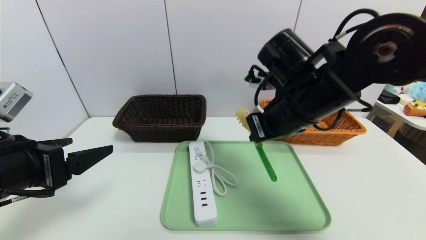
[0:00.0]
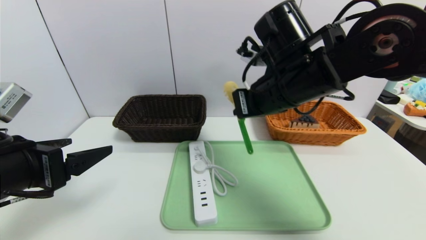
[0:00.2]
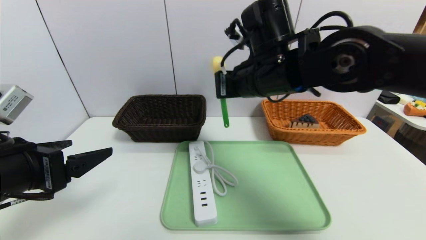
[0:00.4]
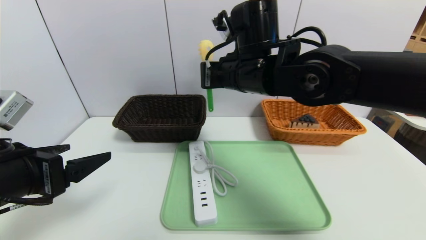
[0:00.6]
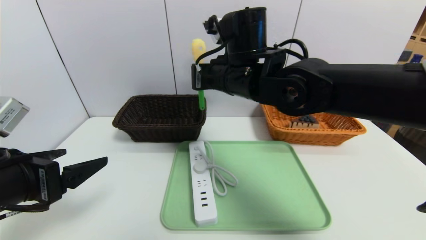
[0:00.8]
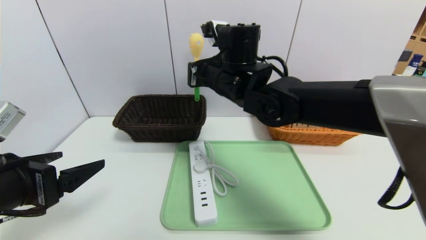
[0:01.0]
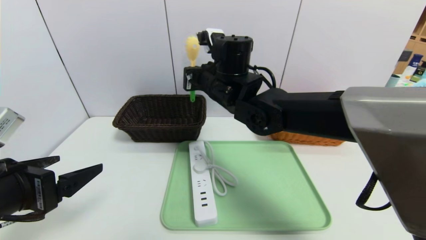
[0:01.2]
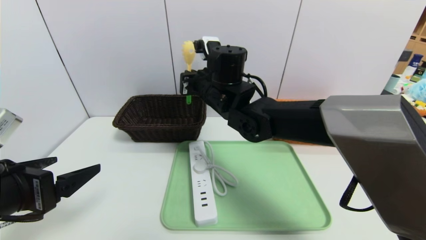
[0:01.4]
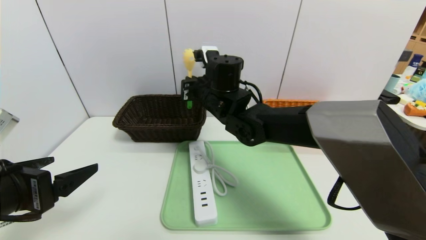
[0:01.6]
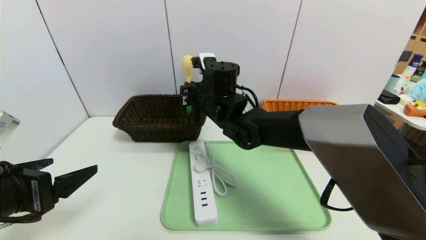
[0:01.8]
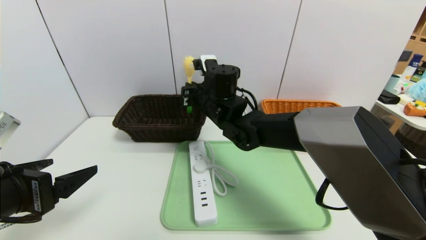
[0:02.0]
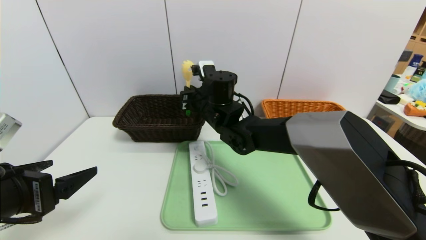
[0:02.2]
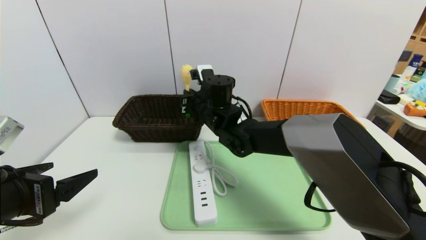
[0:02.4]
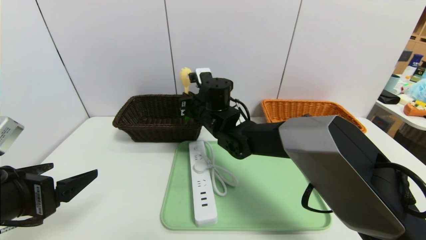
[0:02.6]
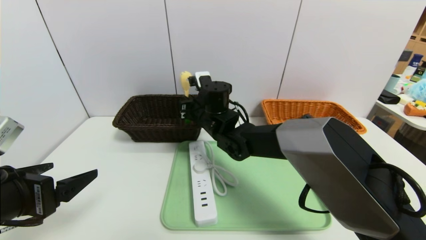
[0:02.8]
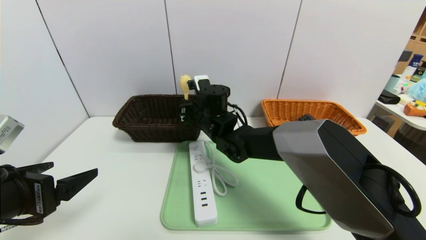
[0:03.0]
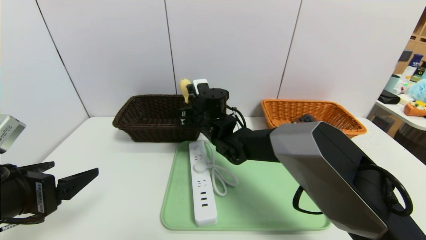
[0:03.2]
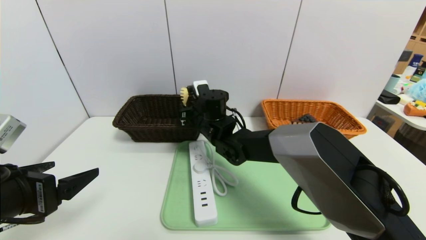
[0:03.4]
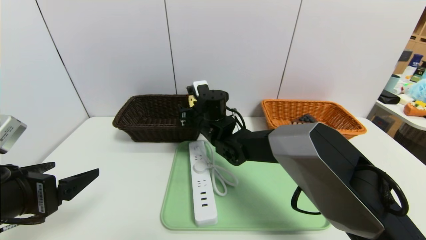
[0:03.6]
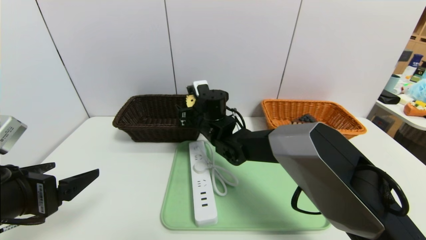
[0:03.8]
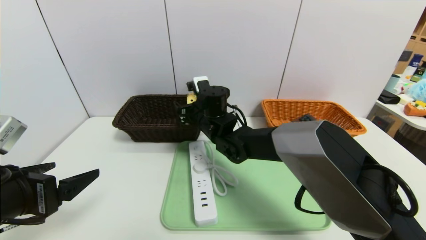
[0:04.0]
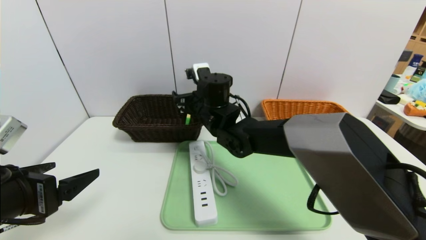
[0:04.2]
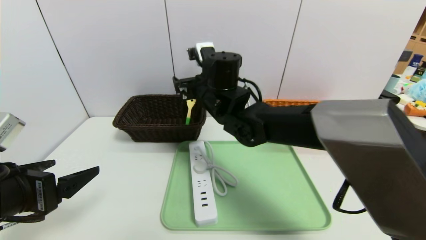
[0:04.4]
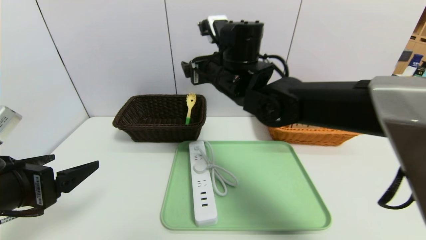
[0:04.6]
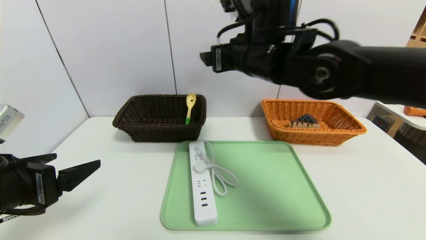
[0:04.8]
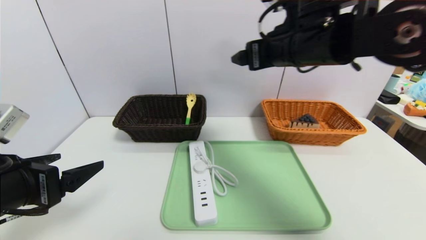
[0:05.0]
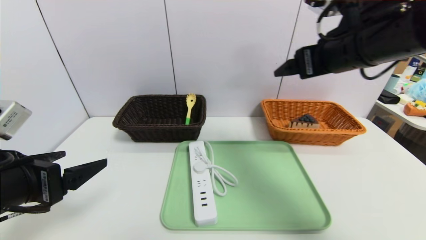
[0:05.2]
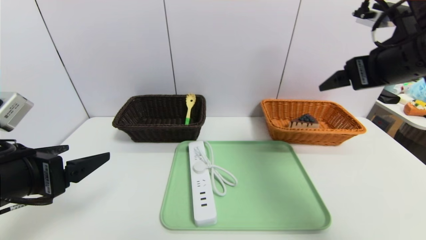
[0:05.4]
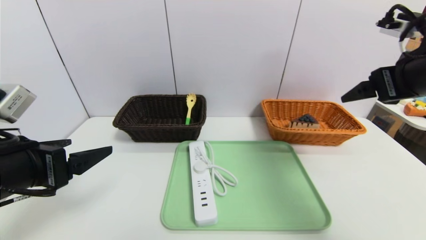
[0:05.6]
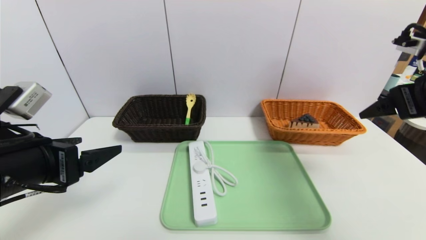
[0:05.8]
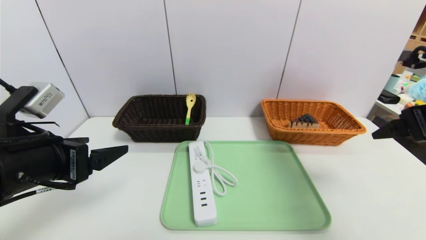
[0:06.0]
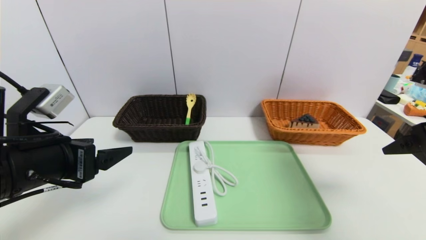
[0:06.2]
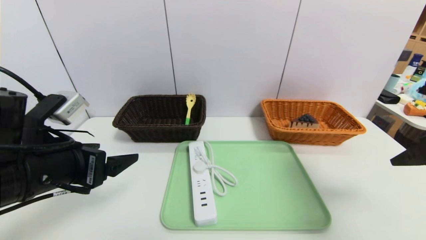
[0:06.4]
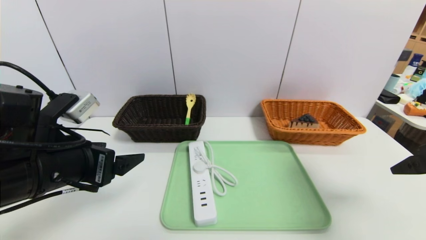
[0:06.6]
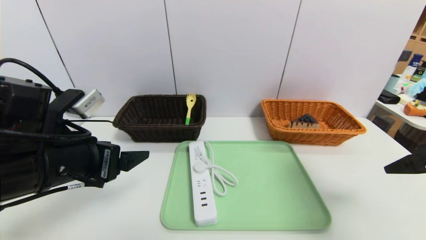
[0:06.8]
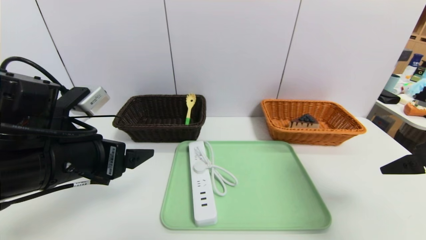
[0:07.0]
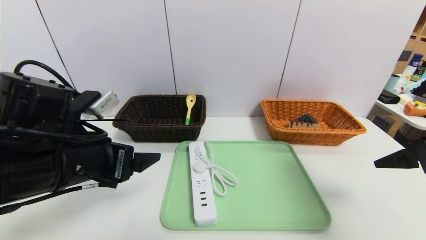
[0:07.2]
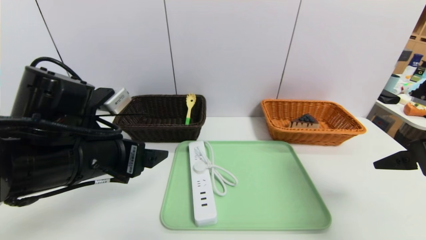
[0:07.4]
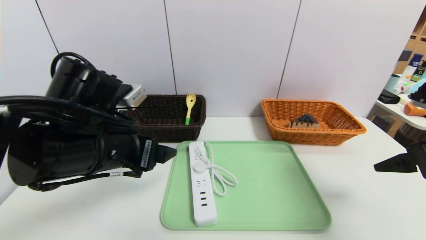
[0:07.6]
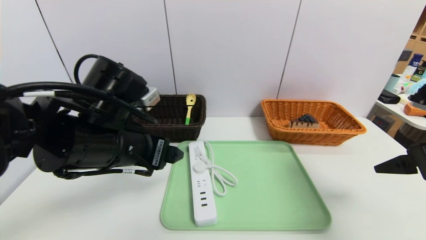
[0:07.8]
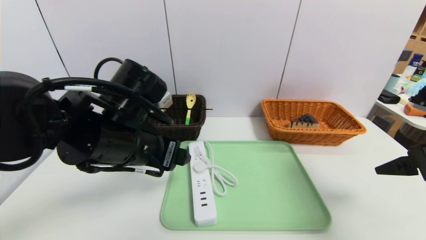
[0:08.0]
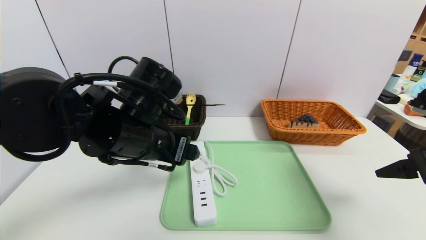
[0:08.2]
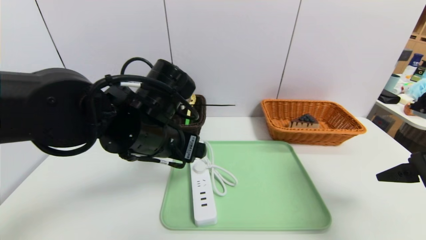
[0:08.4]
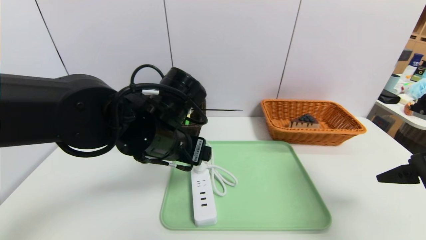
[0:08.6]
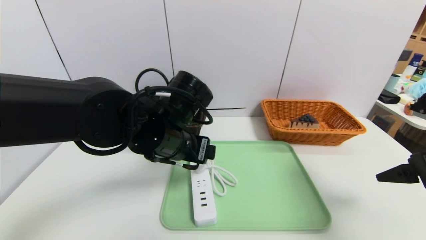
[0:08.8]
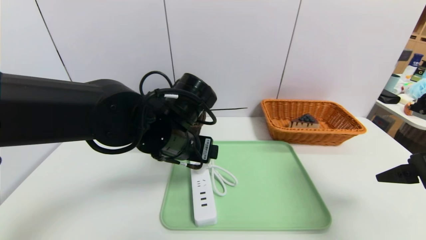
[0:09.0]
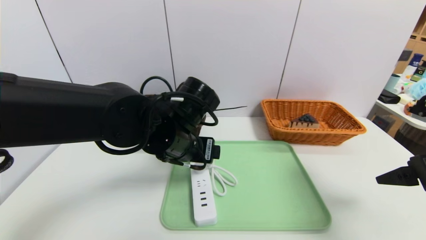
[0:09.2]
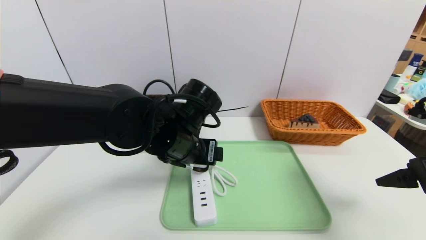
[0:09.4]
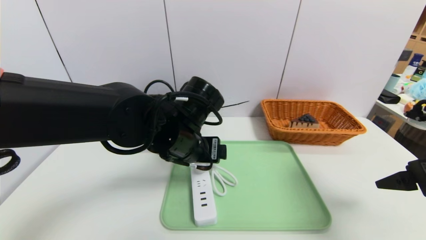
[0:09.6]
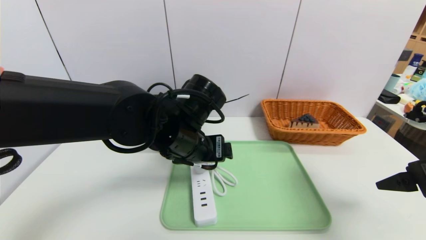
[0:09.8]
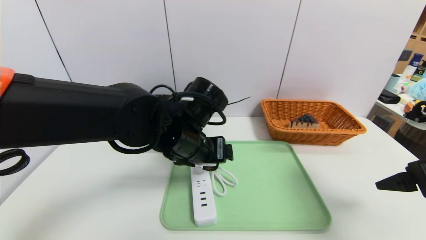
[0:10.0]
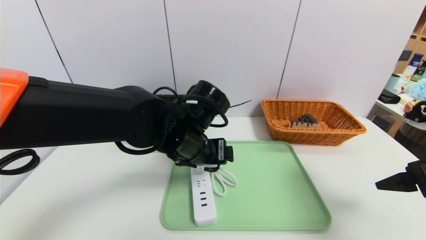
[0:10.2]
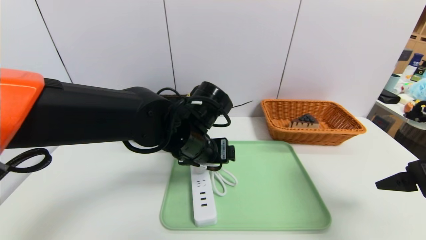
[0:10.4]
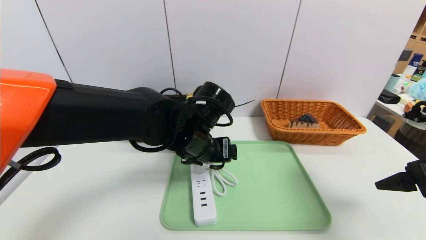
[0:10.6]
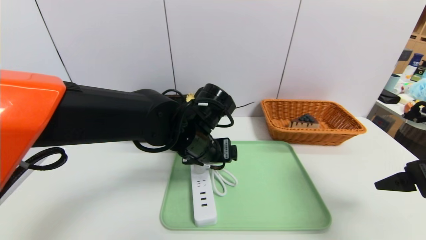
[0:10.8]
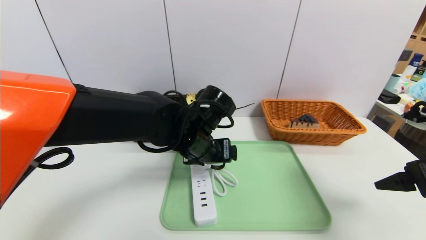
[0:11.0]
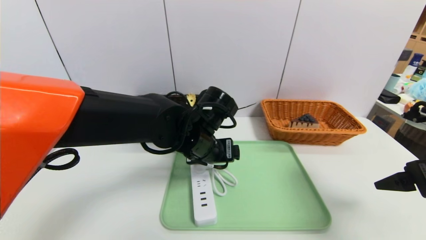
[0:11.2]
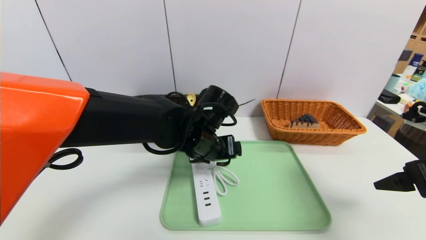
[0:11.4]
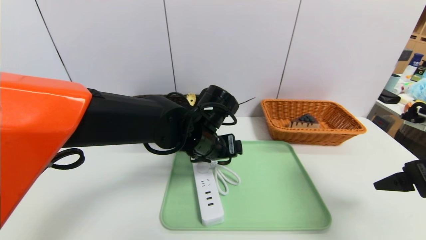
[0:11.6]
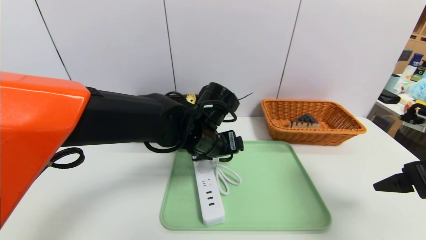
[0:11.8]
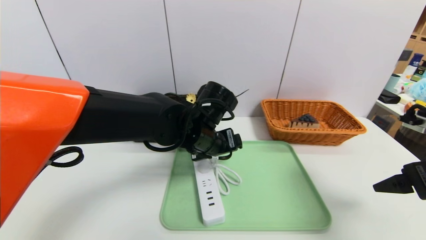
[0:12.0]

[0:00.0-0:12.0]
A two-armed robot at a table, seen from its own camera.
Task of the whole recording: place the food in the right basket with the right gripper, and place the non food items in the left basket with the left gripper.
0.0 to 1.6 s: The right gripper shifts about 15 cm to the left and forward.
1.6 to 3.0 s: The right gripper travels downward by about 5 cm.
3.0 to 4.4 s: The right gripper shifts approximately 10 cm upward, and opens up.
4.4 to 6.0 s: The left gripper moves approximately 5 cm; the right gripper moves to the right and backward, roughly 35 cm.
6.0 to 7.6 s: The left gripper is displaced to the right by about 10 cm.
7.6 to 9.0 s: The left gripper goes approximately 10 cm to the right and forward.
9.0 to 10.4 s: The grippers make only small movements.
10.4 to 12.0 s: The grippers move only a little.

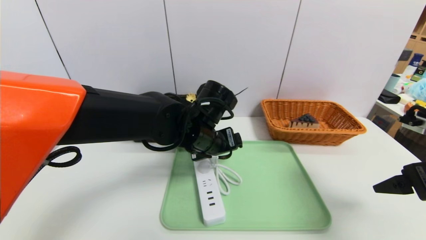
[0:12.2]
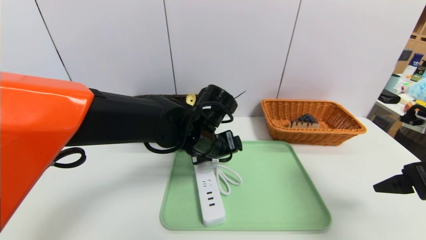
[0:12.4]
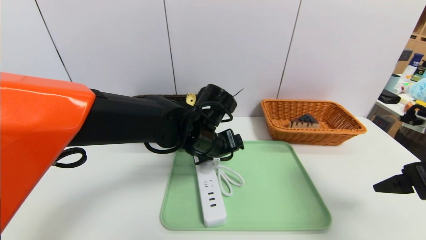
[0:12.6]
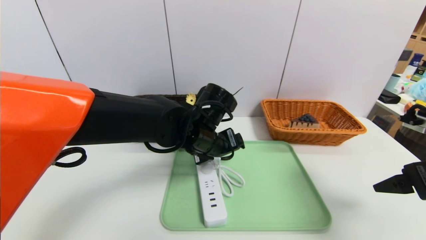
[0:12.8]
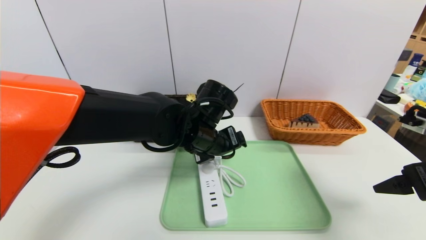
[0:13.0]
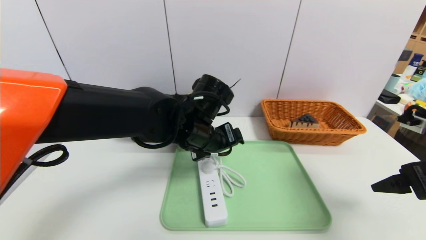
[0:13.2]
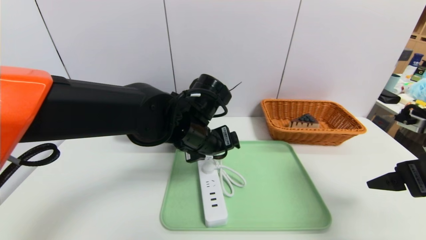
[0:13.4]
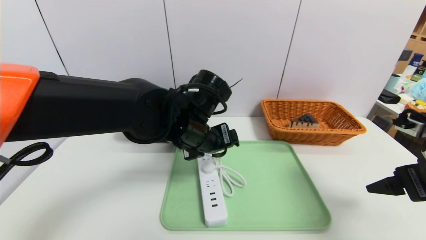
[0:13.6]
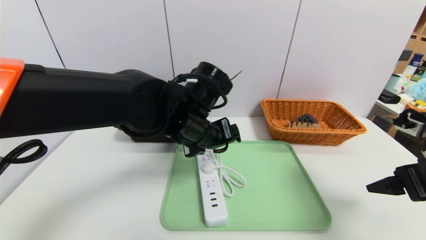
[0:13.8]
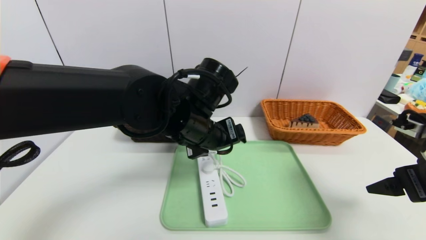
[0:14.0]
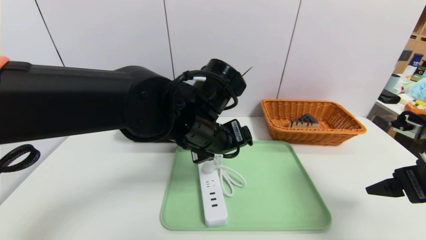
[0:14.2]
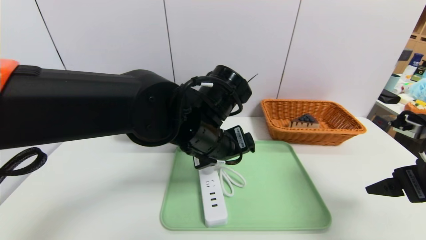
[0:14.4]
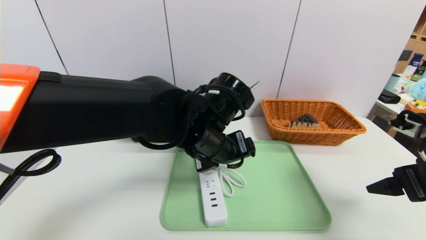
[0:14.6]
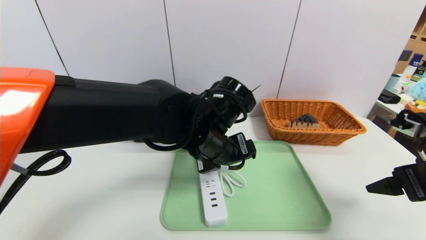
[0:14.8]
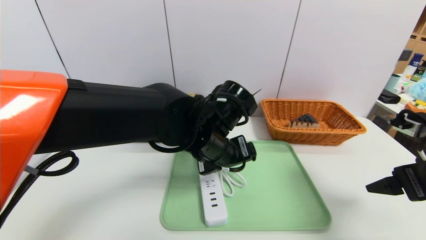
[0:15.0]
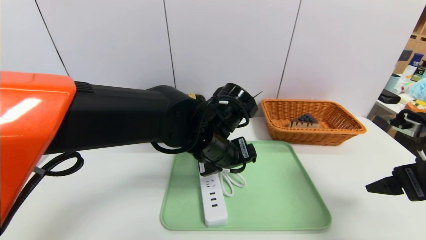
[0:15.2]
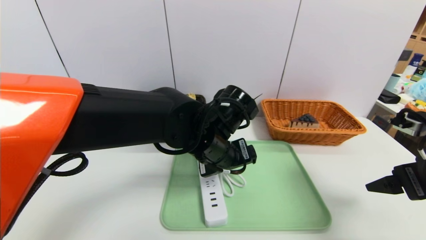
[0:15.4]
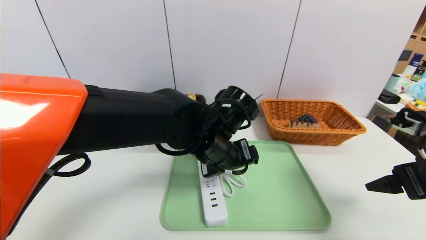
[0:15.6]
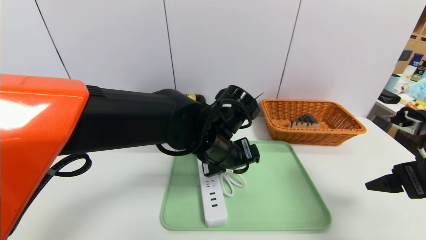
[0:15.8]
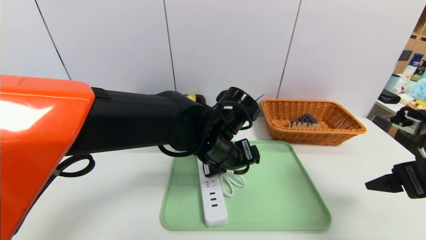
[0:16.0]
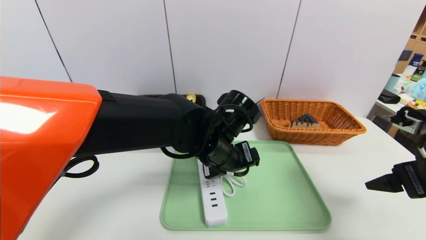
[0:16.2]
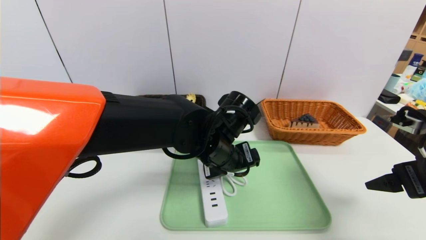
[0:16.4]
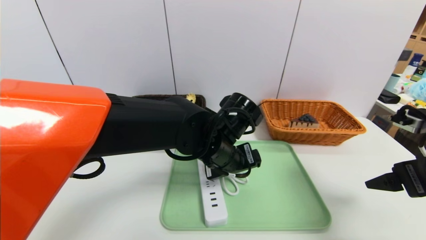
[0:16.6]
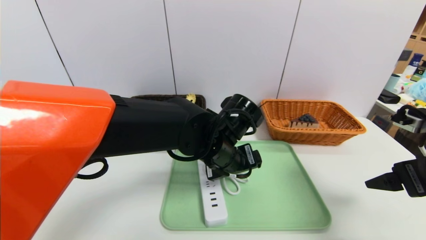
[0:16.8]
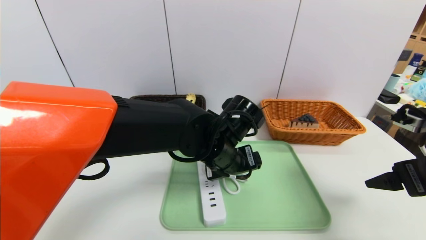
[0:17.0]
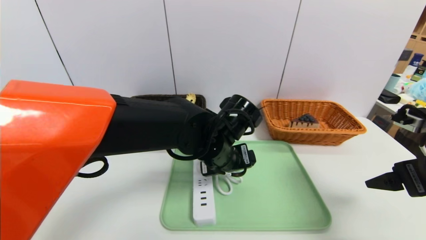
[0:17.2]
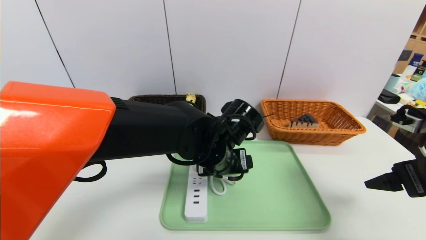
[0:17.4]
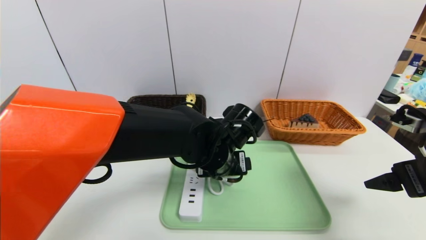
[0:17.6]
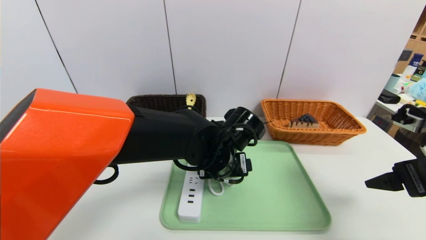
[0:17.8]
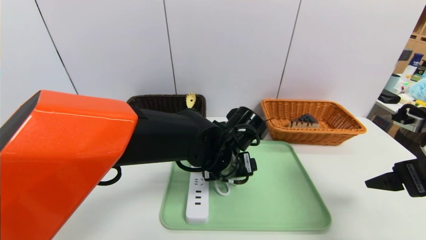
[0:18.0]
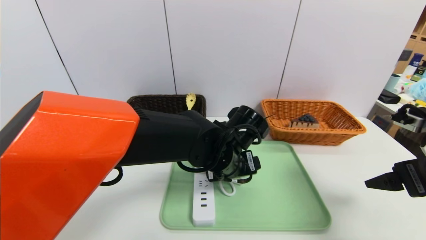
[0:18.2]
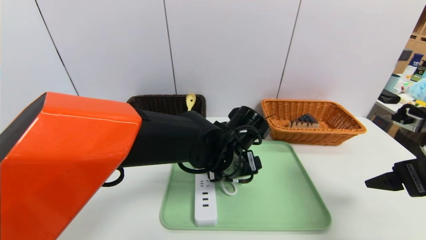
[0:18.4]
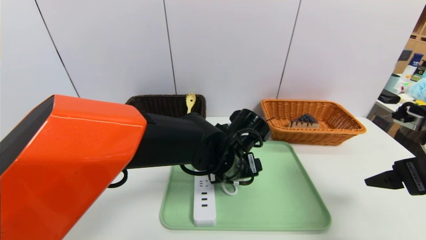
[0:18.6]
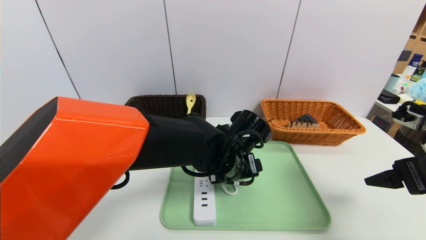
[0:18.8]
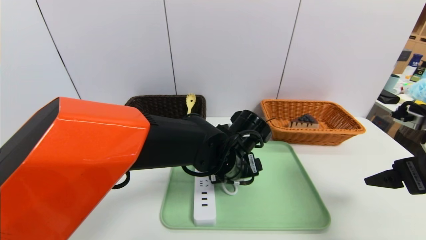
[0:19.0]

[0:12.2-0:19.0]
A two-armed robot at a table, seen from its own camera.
Task of the whole recording: place the food in the right basket with the right gripper, and place the non food items in the left basket with the left gripper.
12.2 to 17.6 s: The grippers make only small movements.
17.6 to 19.0 s: There are only small adjustments of the grippers.
